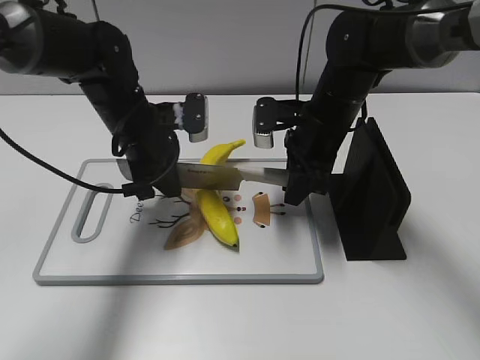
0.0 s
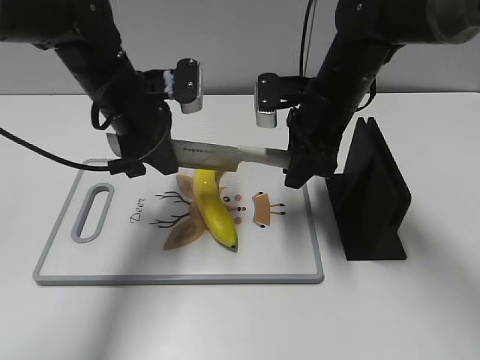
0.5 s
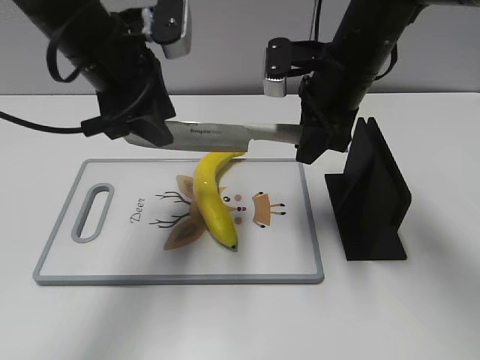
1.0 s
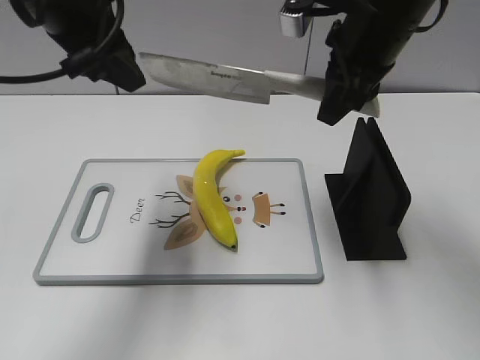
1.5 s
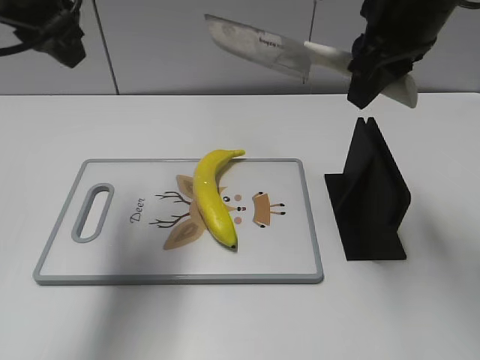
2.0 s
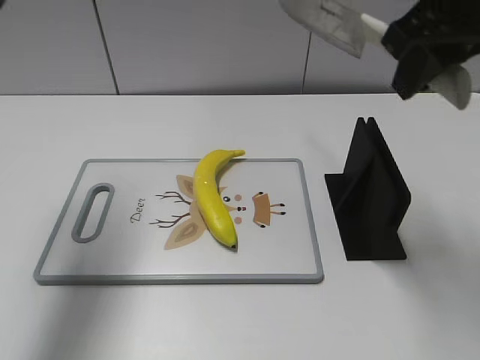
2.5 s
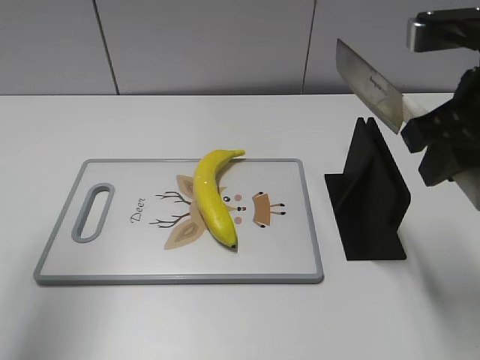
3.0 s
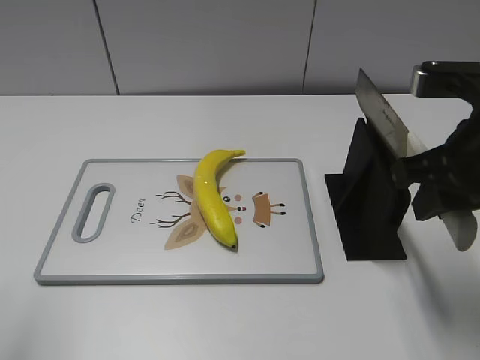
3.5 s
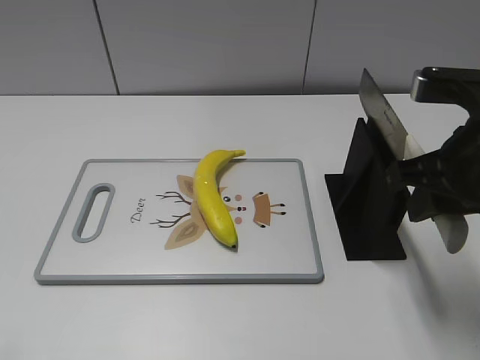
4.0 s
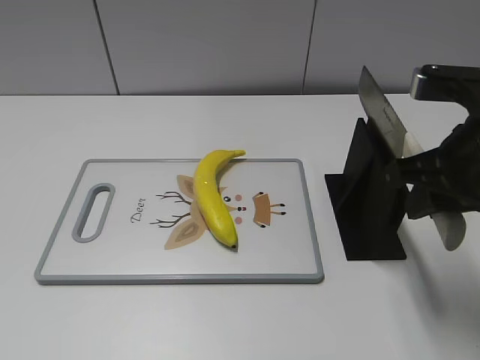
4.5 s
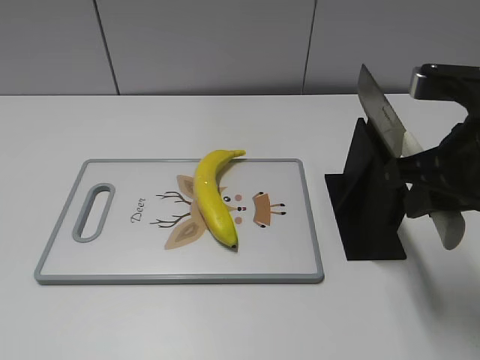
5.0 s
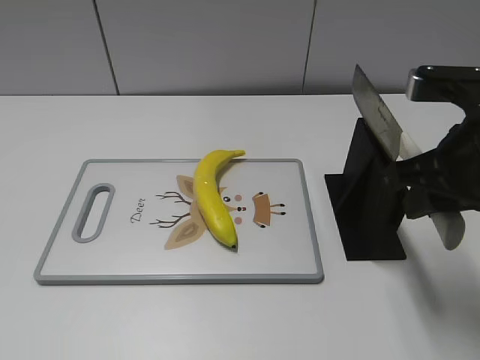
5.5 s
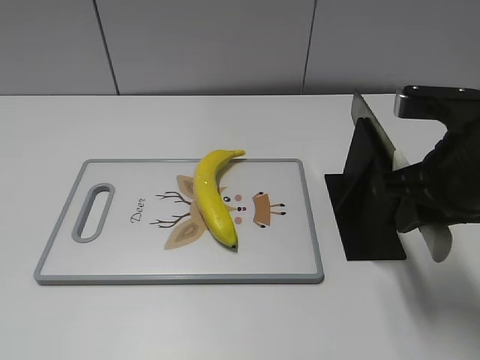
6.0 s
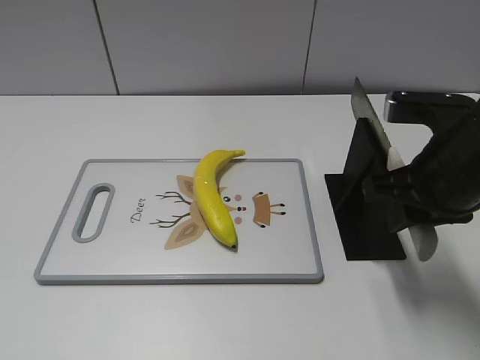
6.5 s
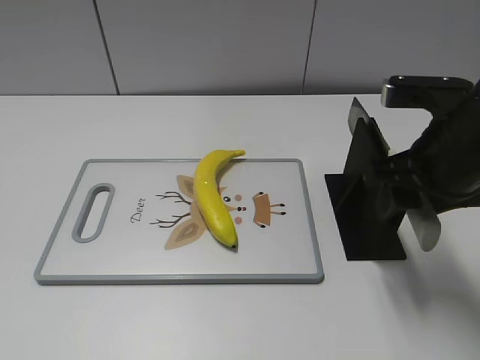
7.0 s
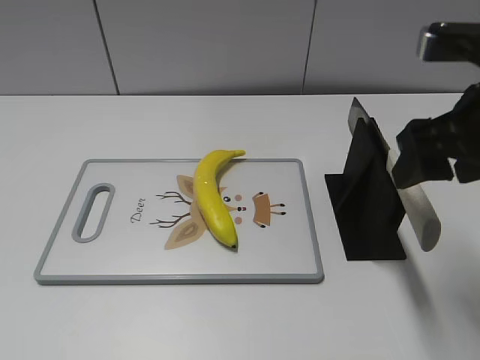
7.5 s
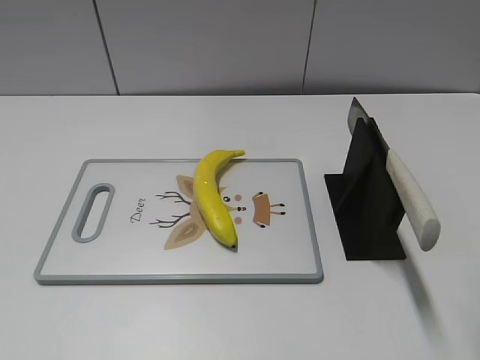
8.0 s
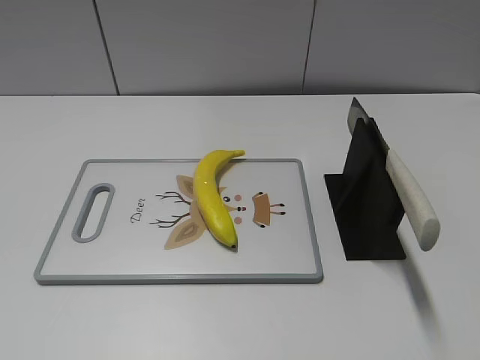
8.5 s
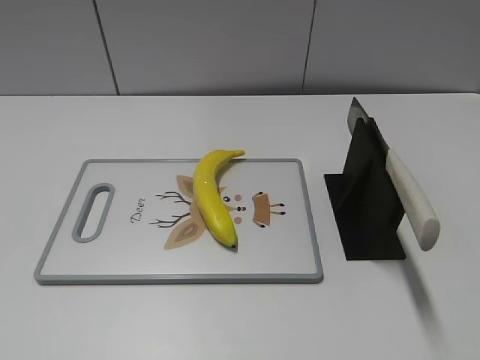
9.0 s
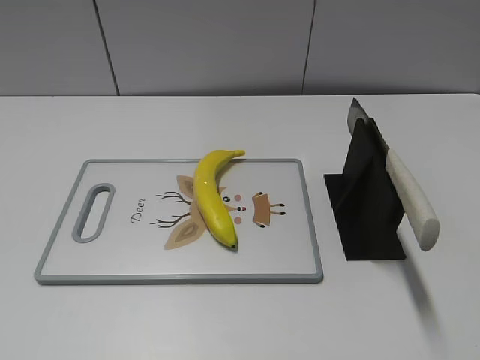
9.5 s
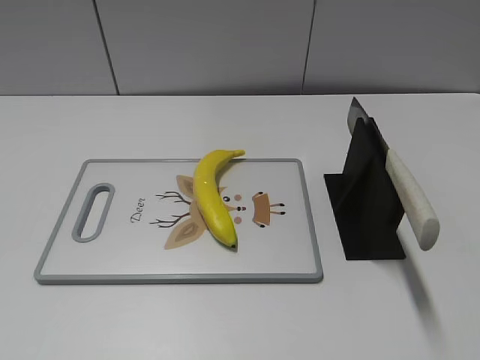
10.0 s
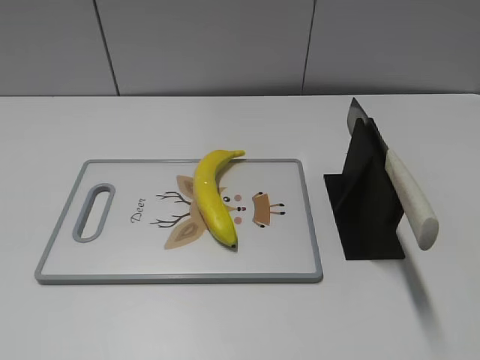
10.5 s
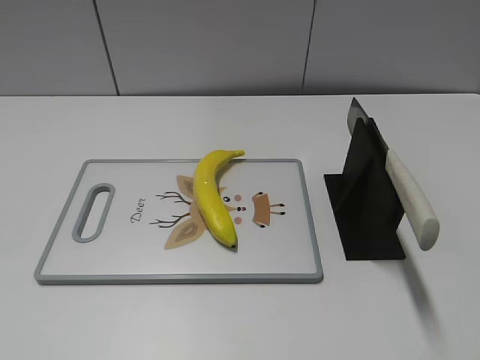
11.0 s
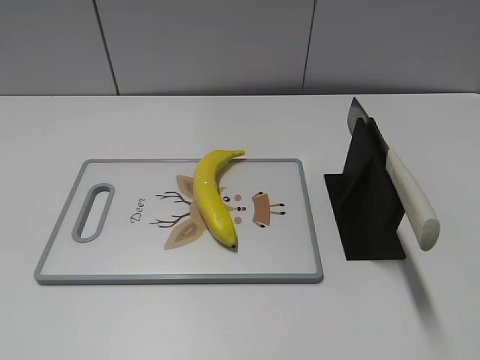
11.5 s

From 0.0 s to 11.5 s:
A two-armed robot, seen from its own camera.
Task of the whole recording: cut plastic banana.
Step, from 0.5 s to 2.0 s: Cut the banana with your right hand.
Step, from 2.5 s to 4.5 s: Secure the blade with your left hand.
Step, from 5.0 s to 11.5 s: Place the knife on the storage rack with your right hand.
From 0.0 s to 2.0 s: Both grippers move upward, approximately 20 cm. The left gripper opens.
From 2.0 s to 4.0 s: The right gripper heads backward, downward and to the right, covering approximately 15 cm. The left gripper shifts some 25 cm backward and to the left.
From 6.0 s to 7.5 s: The right gripper moves upward, some 5 cm, and opens up.
From 7.5 s to 9.5 s: The right gripper is displaced backward by some 20 cm.

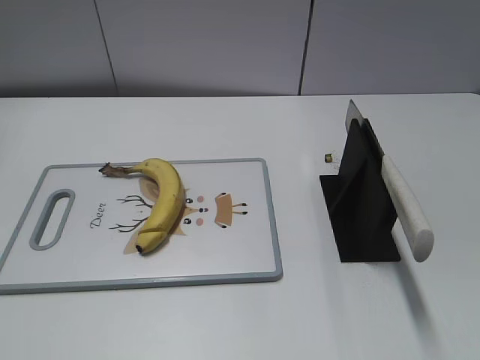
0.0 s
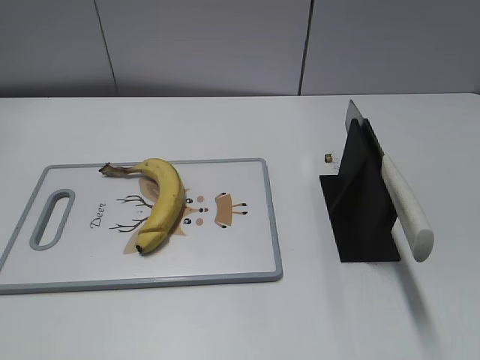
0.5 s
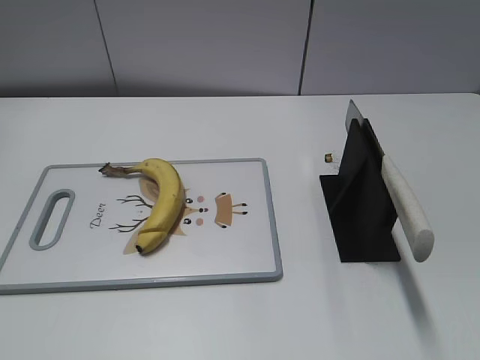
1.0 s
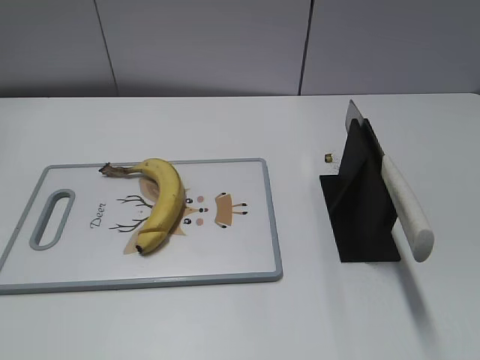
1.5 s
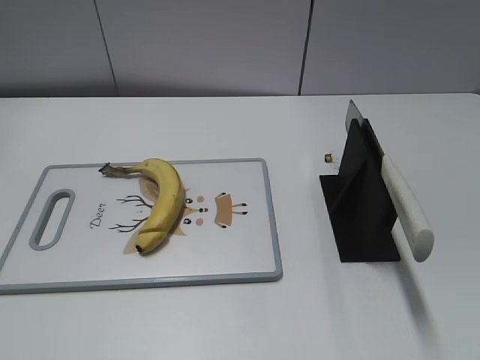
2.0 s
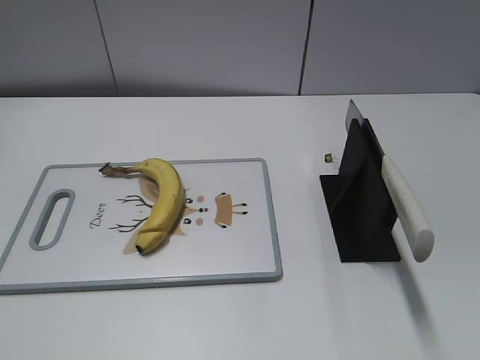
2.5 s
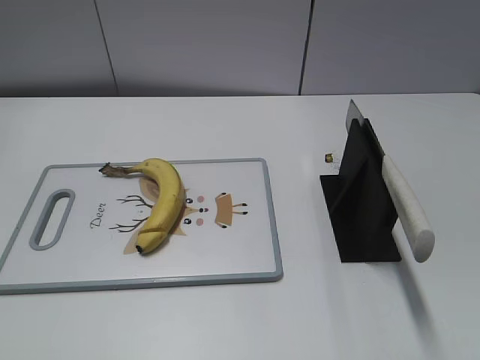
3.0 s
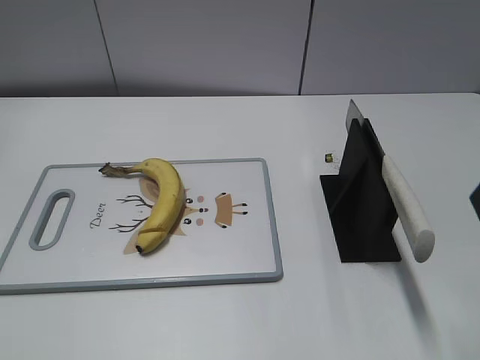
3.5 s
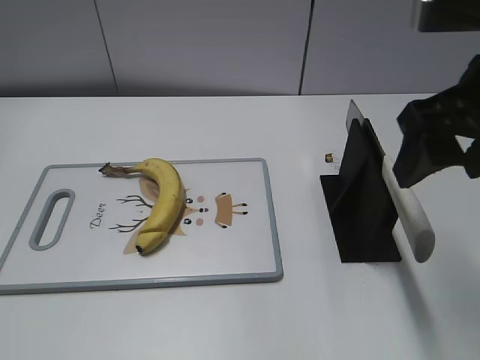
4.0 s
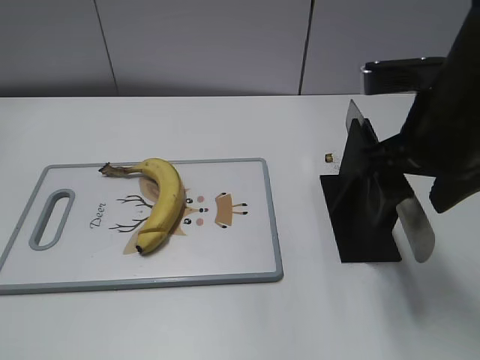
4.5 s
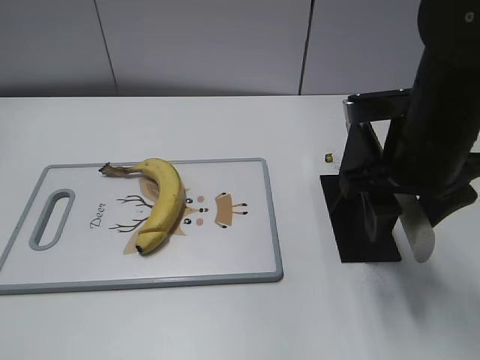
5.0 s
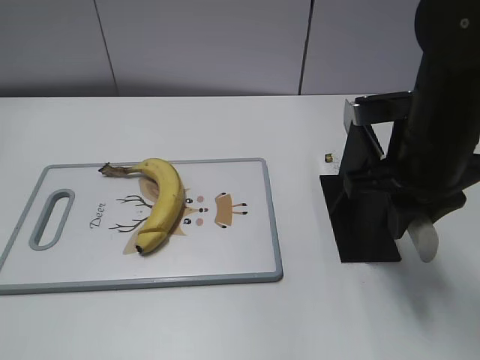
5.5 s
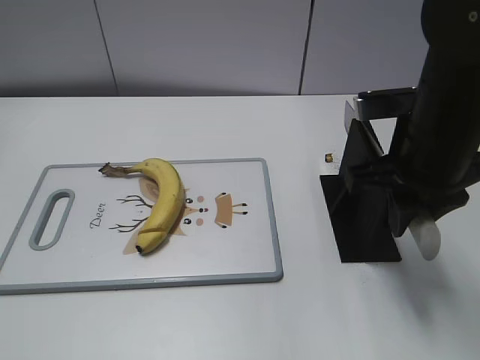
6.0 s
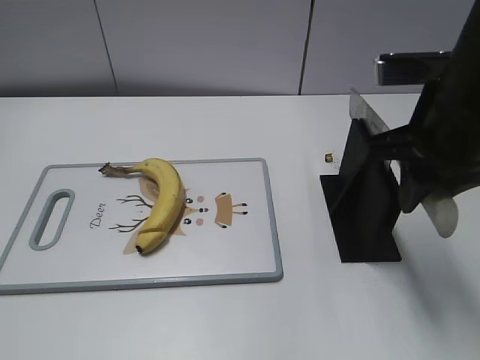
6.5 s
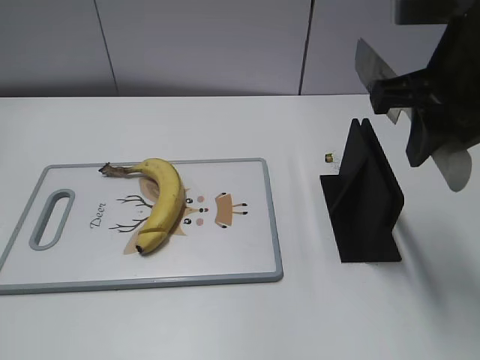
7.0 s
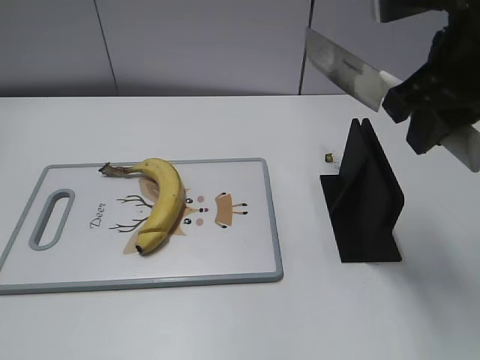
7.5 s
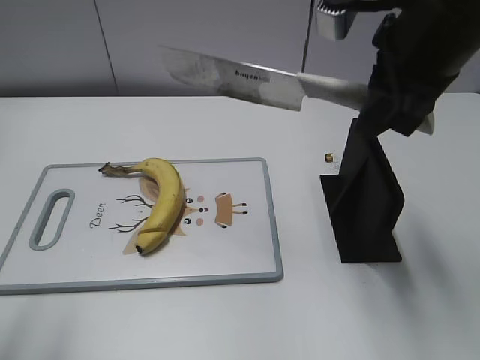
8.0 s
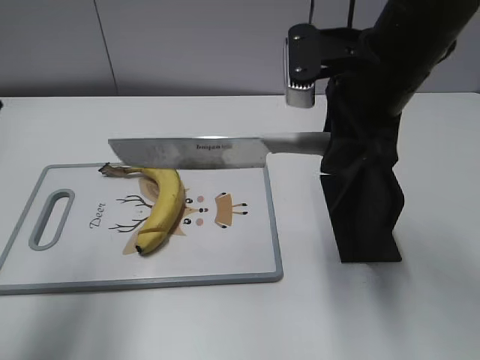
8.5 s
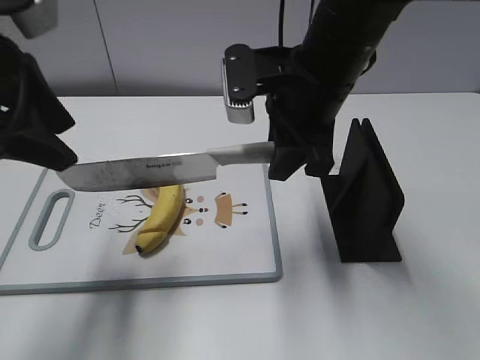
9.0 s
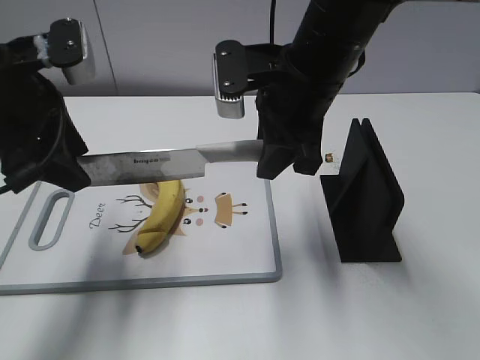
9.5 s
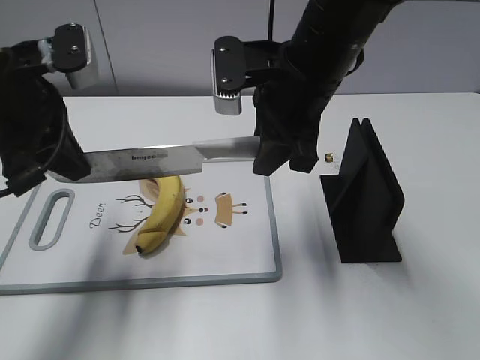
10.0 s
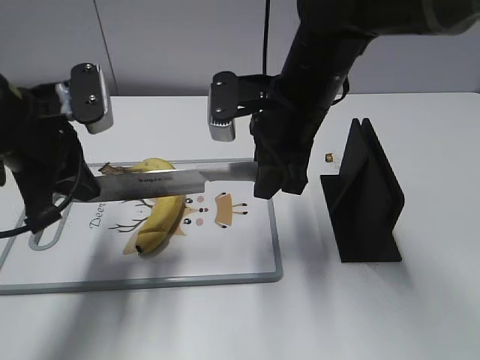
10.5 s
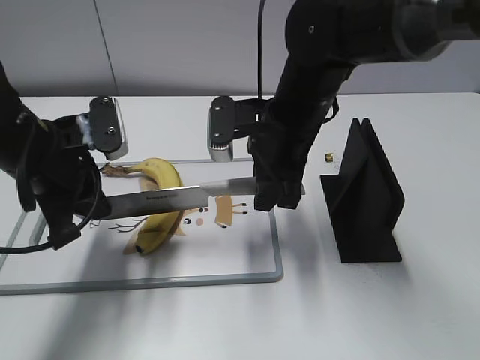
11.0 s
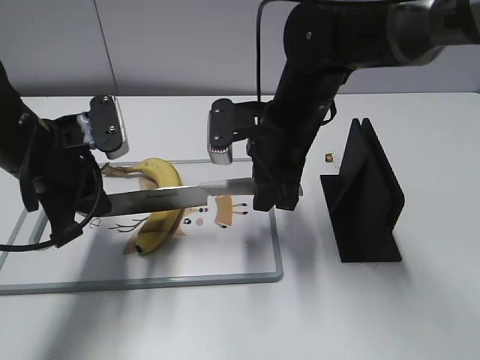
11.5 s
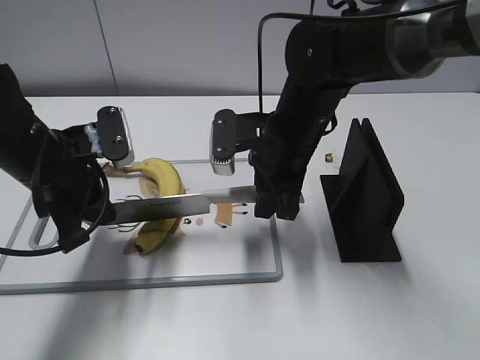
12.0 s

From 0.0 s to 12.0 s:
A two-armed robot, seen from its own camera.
Task of the whole recording: cut banana.
Step, from 0.0 s to 7.0 s: Grab the knife handle with your right hand.
From 2.0 s to 4.0 s: The right gripper moves forward and to the left, approximately 25 cm.
From 4.0 s to 6.0 s: The right gripper shifts some 10 cm downward, and closes its fingers.
From 6.0 s to 8.0 s: The right gripper heads upward, covering roughly 10 cm, while the left gripper heads forward and upward, covering some 15 cm.
From 8.0 s to 10.0 s: The right gripper moves to the left and downward, approximately 10 cm; the left gripper moves forward and to the right, roughly 20 cm, and closes.
From 10.0 s to 12.0 s: The grippers both shift downward by some 10 cm.

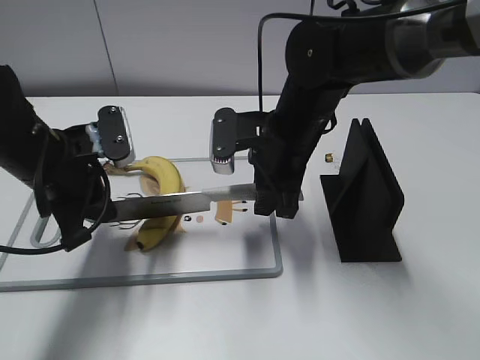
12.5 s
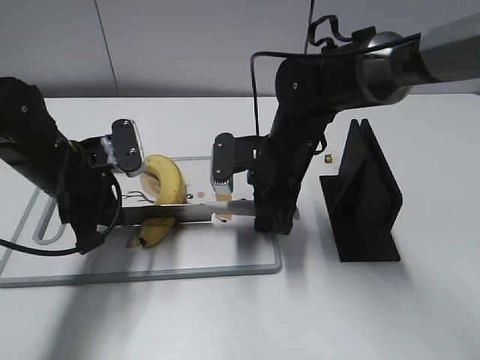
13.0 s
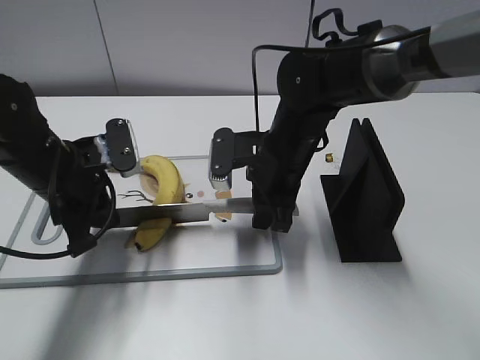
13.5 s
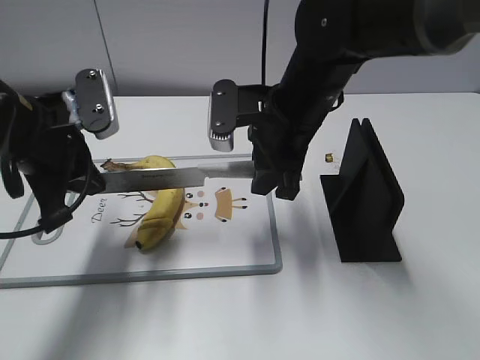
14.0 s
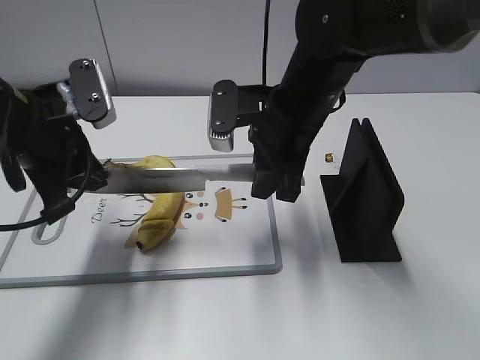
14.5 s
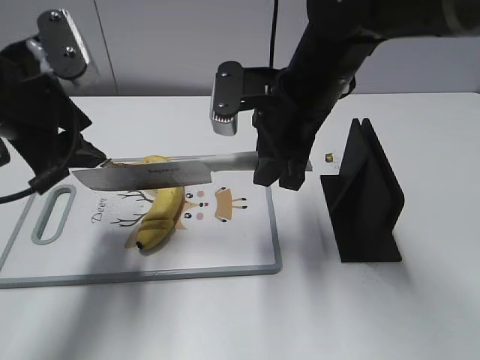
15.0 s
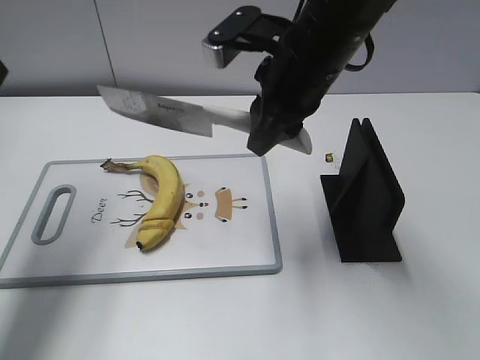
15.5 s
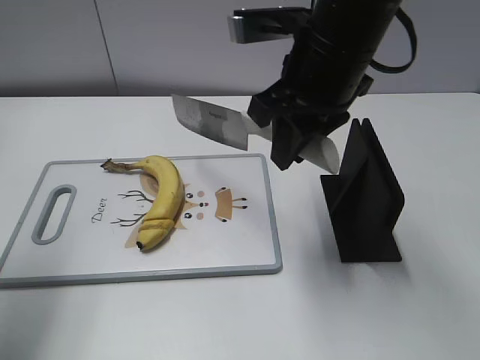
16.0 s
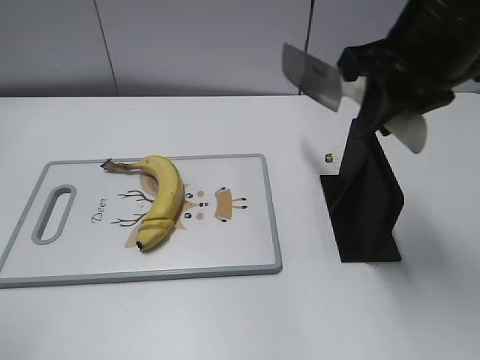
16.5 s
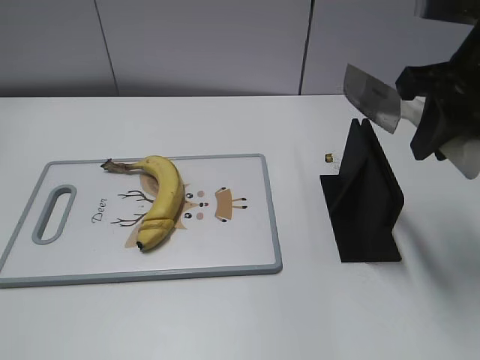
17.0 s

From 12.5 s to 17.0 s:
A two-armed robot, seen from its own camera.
Task of the whole recording: cut banana.
Step, from 12.5 s to 16.0 s: Cut the banana with your right hand.
From 12.5 s to 14.5 s: The left gripper ends up some 5 cm from where it was.
From 14.5 s to 17.0 s: The left gripper heads backward and to the left, covering some 25 cm, and opens up. The right gripper shifts about 20 cm to the right and upward.
